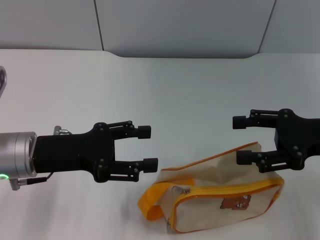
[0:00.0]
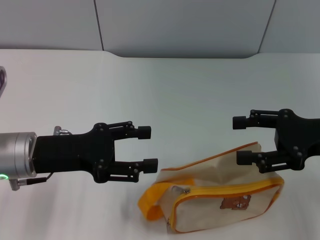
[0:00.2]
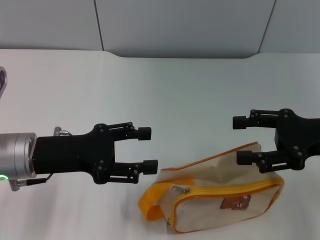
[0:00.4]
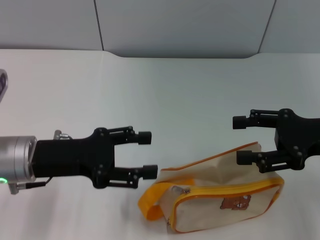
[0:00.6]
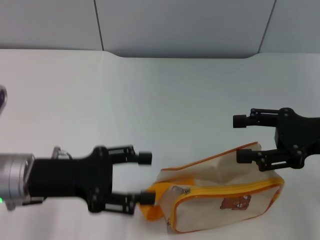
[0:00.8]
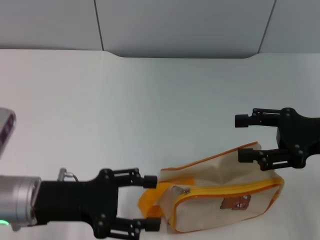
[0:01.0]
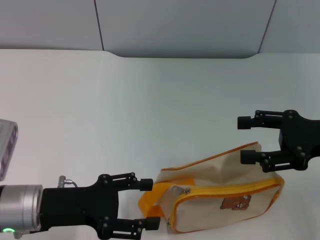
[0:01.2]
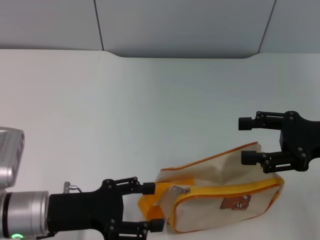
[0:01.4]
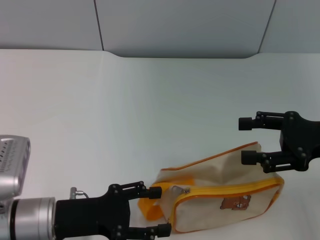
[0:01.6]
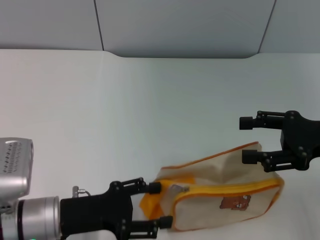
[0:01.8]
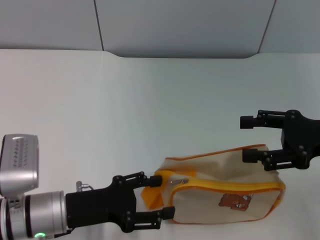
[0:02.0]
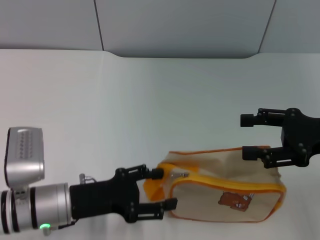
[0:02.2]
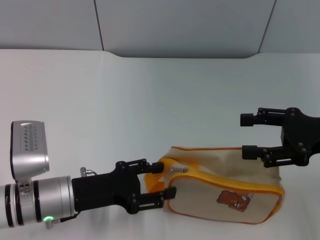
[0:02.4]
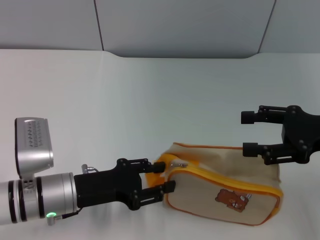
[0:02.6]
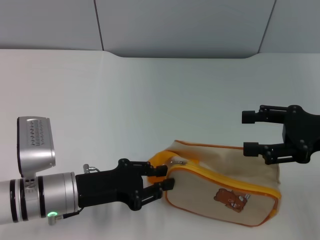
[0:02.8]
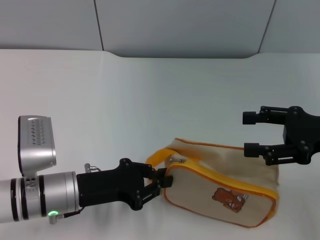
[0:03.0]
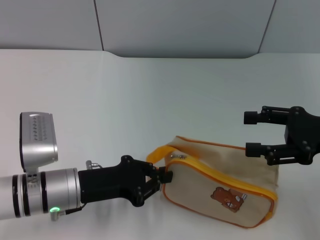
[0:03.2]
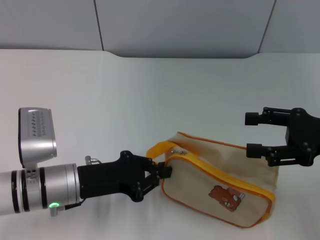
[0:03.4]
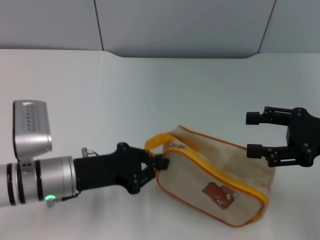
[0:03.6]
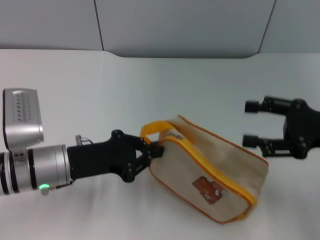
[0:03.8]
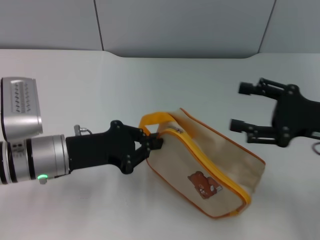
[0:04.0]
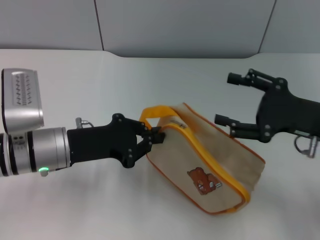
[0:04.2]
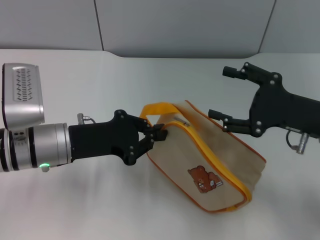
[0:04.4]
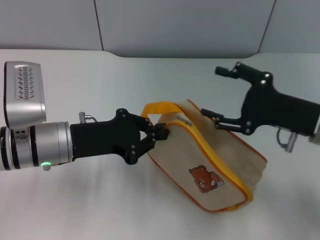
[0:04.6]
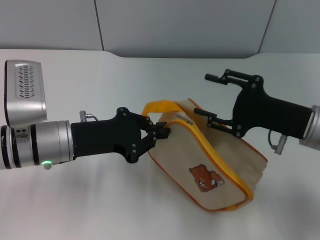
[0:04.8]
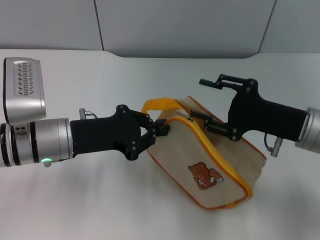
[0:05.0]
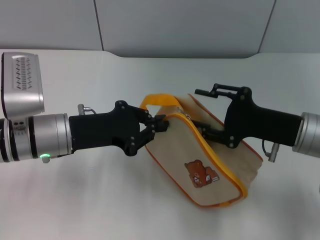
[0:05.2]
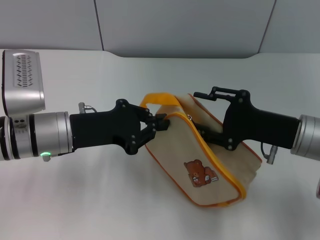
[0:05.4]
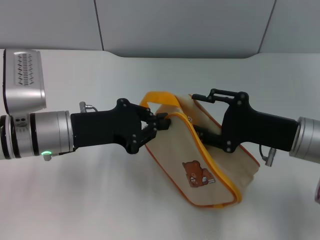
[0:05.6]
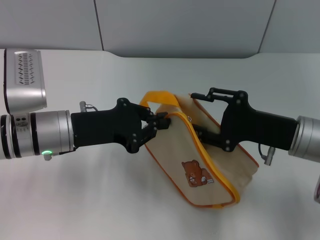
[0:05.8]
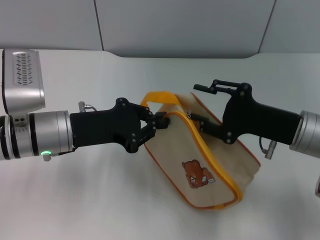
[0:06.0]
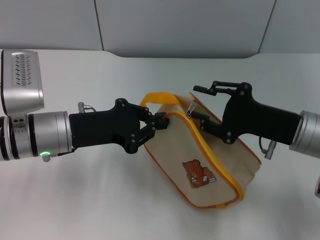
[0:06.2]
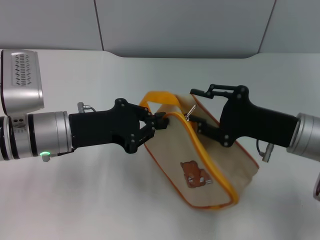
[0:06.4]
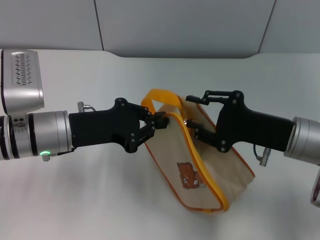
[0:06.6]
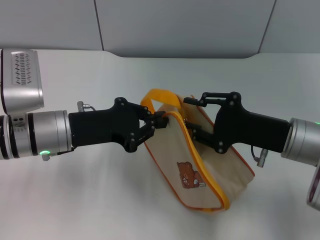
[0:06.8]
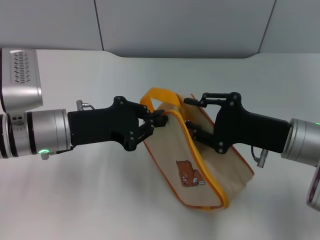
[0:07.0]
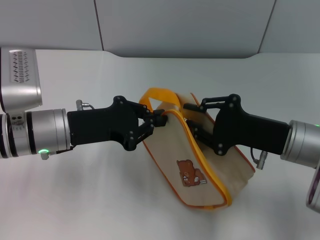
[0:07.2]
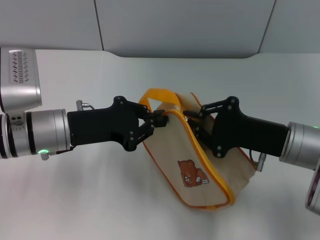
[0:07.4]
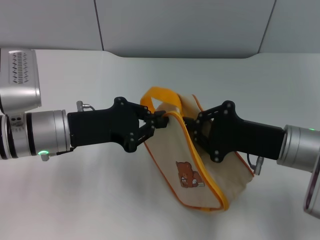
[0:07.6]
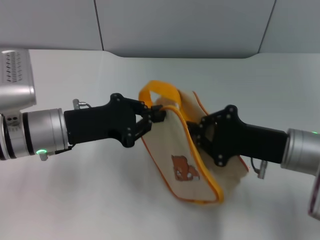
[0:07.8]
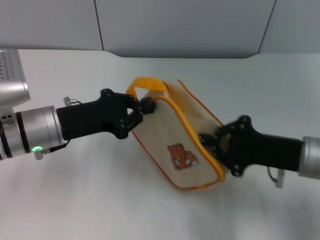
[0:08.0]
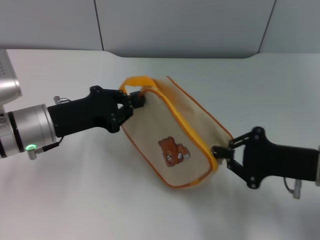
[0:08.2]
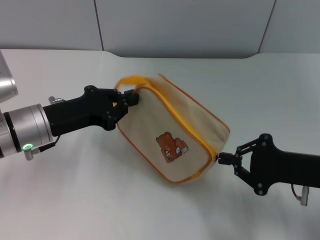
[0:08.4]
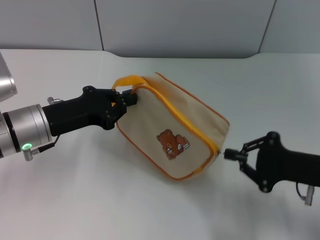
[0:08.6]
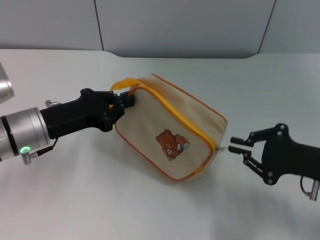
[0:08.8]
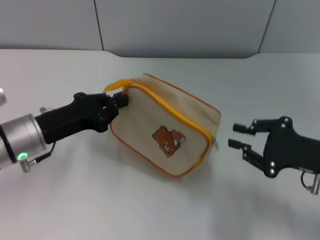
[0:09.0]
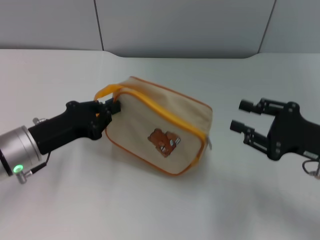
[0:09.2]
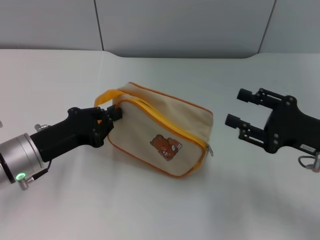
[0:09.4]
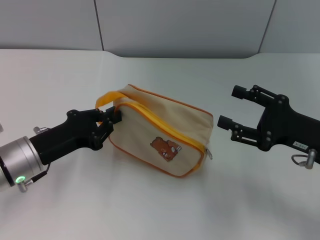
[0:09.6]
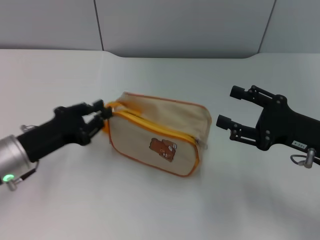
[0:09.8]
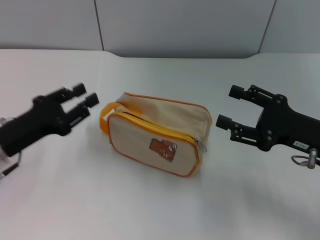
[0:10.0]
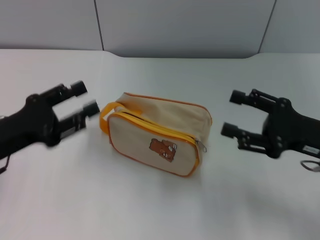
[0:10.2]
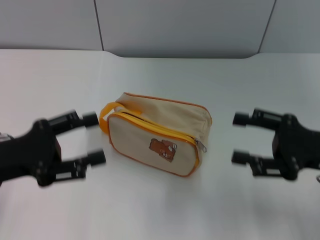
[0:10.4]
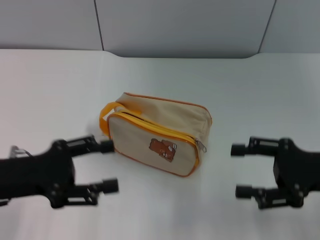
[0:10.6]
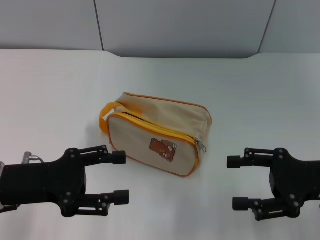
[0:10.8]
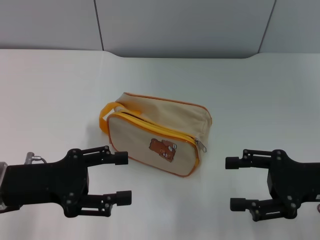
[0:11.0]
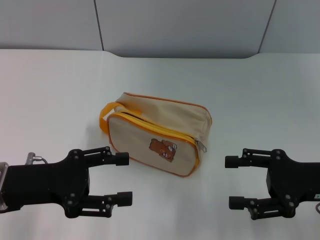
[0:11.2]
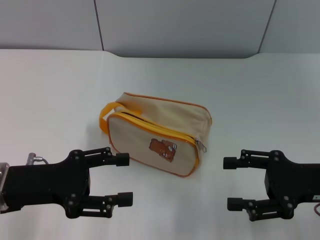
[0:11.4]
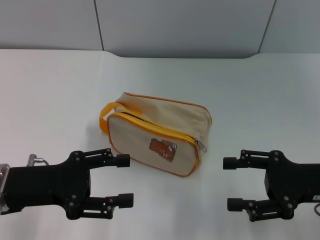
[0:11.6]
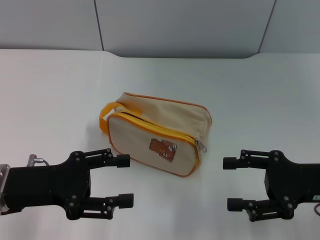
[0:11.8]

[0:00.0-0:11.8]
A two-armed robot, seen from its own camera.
Step, 0:00.0 to 0:04.0: Pick up the bag with left gripper.
Step, 0:04.2 to 0:08.8: Unzip the zipper of bag with right gripper.
Step, 0:09.0 to 0:09.8: Place the bag on the table with left gripper.
0:00.0 to 0:01.4: The left gripper moves downward and backward, some 10 cm.
0:01.4 to 0:03.0: The left gripper closes its fingers.
0:03.0 to 0:04.4: The left gripper is displaced upward by about 5 cm.
0:06.0 to 0:07.4: The right gripper closes.
0:07.4 to 0:08.8: The right gripper is displaced to the right by roughly 5 cm.
0:08.8 to 0:10.4: The right gripper opens, while the left gripper goes some 10 cm backward and to the left, and opens its fingers.

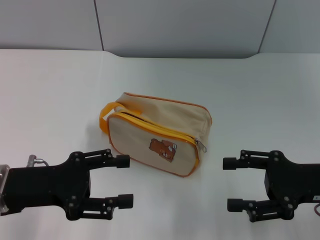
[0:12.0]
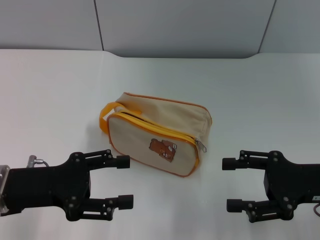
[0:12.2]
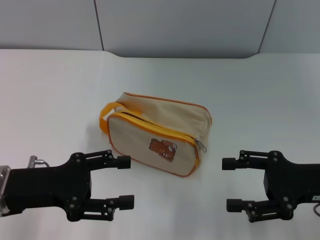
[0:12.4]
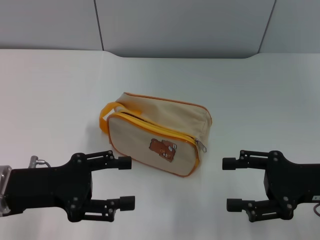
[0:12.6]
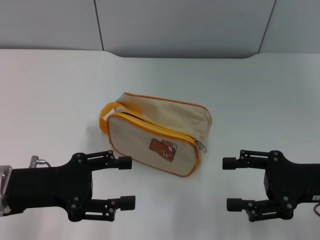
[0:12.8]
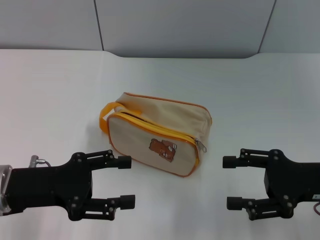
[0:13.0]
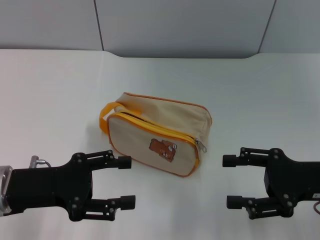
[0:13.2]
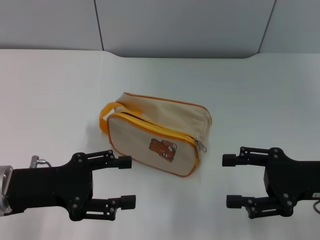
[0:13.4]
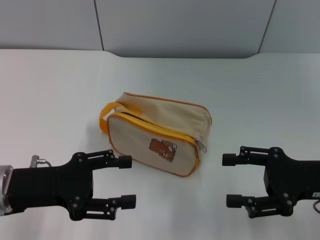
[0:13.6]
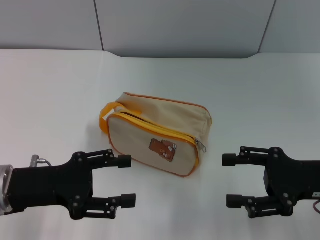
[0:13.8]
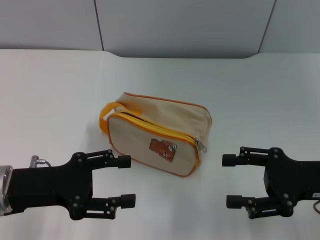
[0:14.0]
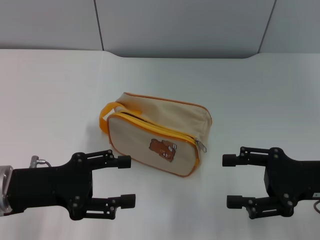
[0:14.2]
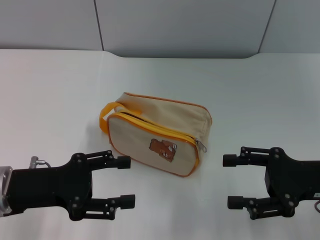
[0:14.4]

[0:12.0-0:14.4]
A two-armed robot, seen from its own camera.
0:12.0 to 0:14.4: Both grippers stay put.

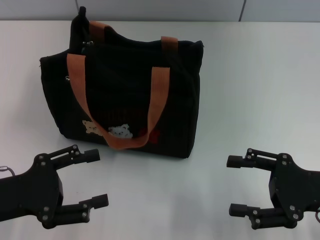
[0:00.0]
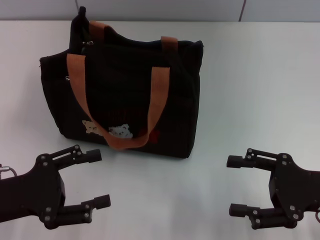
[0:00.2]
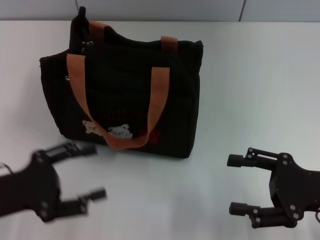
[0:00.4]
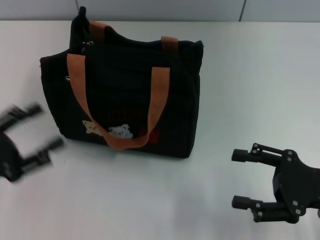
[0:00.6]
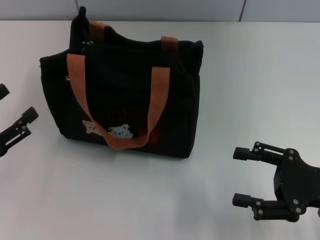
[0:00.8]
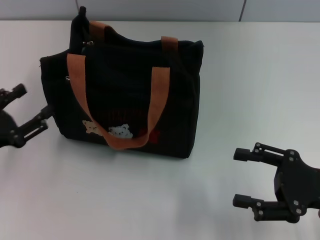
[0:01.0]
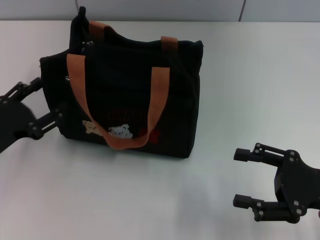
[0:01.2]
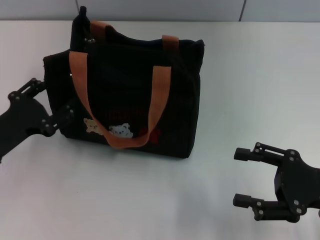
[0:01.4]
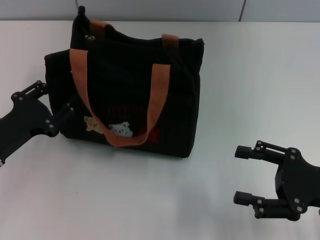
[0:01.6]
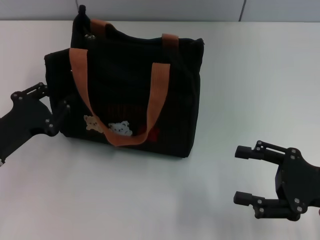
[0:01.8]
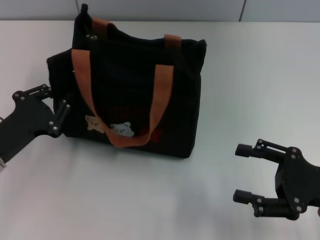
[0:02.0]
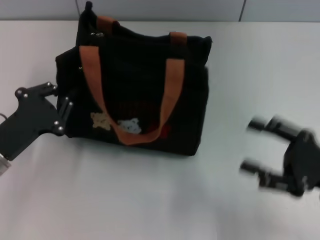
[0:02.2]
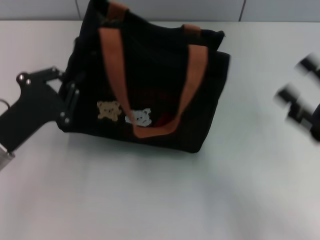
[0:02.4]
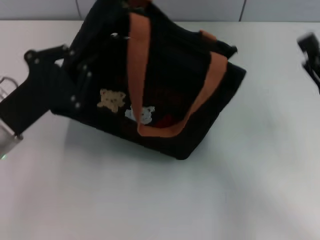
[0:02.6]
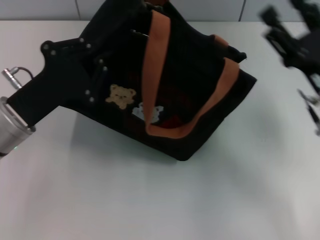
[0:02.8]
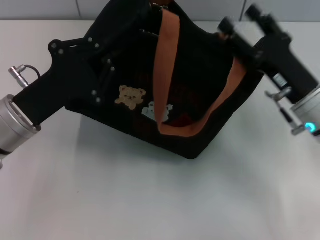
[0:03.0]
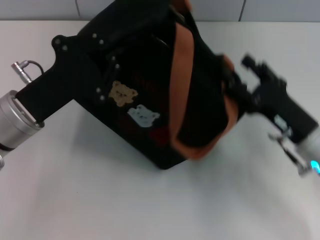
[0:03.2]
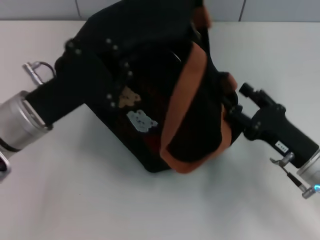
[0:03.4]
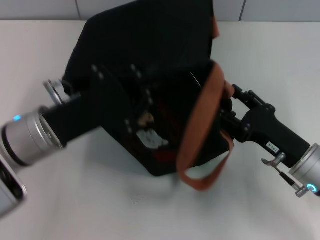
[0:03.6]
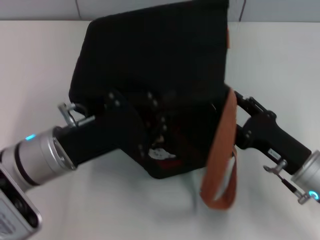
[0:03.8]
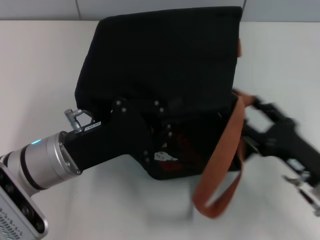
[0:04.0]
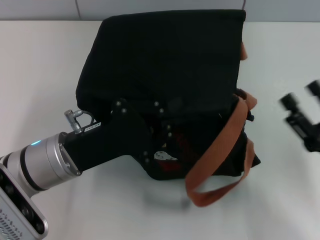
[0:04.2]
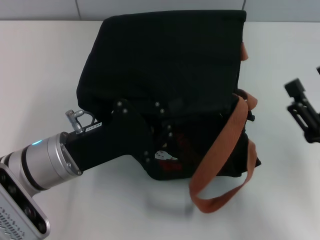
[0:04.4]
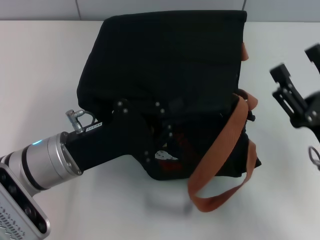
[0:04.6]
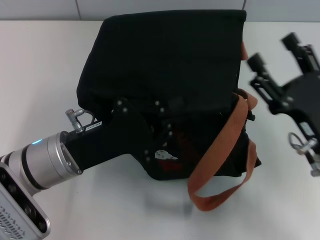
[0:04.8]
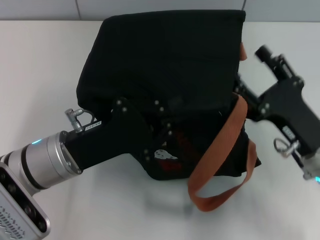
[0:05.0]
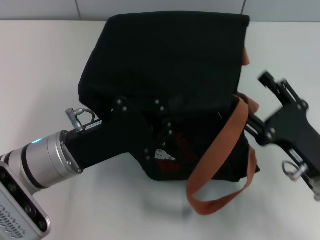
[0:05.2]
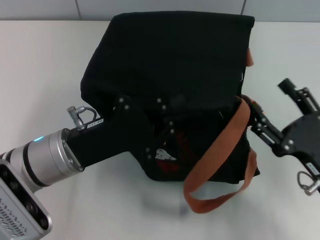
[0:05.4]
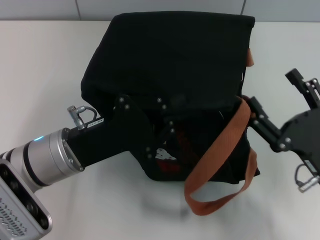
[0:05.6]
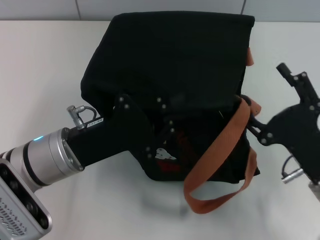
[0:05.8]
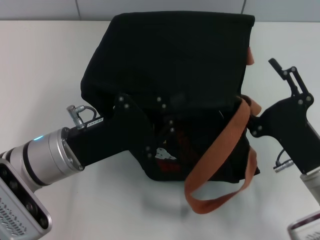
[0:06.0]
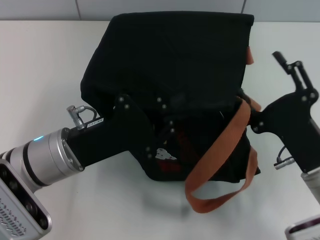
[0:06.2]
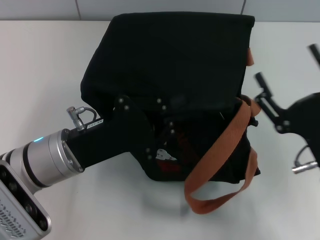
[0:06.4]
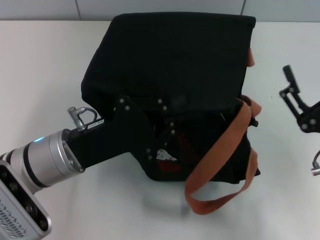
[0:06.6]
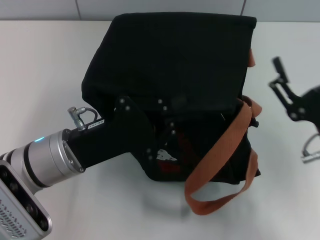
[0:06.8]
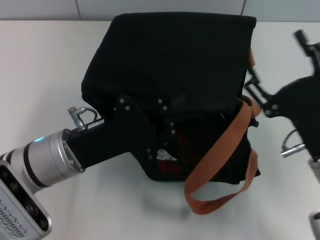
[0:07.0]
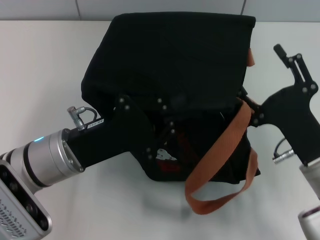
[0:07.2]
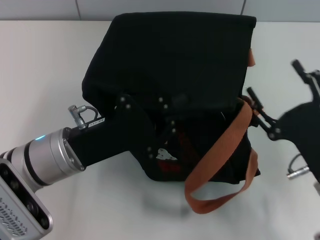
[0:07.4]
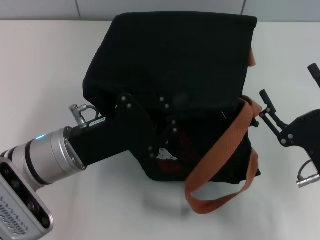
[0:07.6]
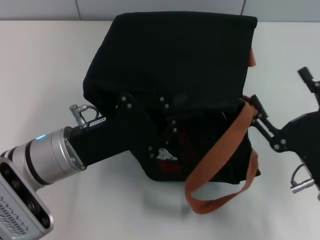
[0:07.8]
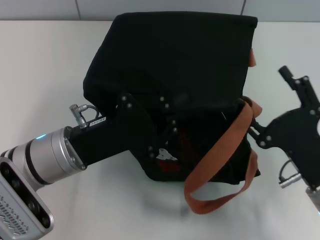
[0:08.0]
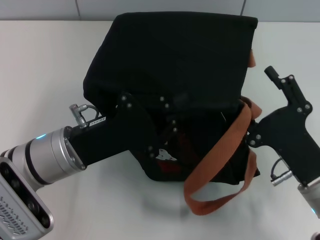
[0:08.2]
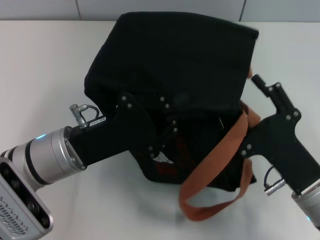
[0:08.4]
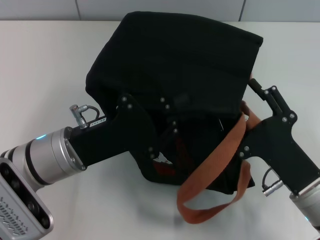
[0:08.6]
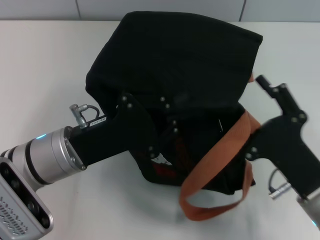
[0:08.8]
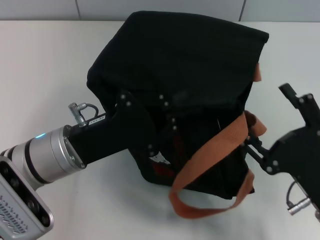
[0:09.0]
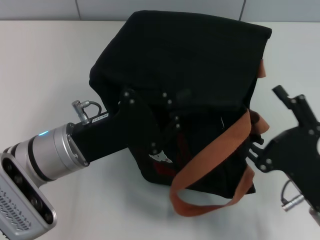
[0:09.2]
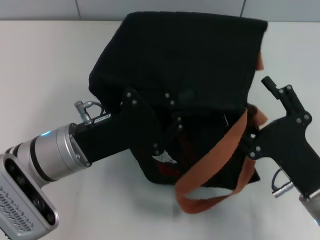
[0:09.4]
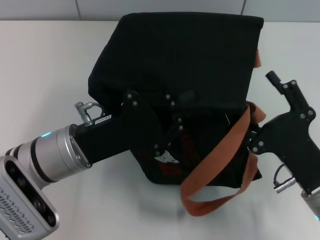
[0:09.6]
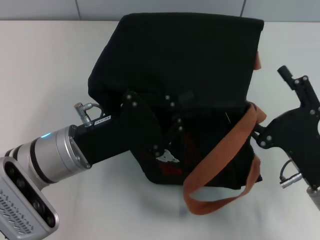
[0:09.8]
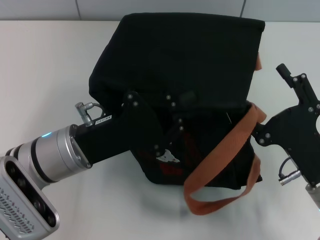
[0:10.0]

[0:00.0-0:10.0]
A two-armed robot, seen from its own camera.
0:00.0 to 0:01.4: The left gripper changes place by about 5 cm.
0:01.4 to 0:02.8: The right gripper goes approximately 5 cm forward. The left gripper shifts roughly 10 cm to the right, and closes.
0:02.8 to 0:04.2: The left gripper travels to the right by about 5 cm. Meanwhile the right gripper heads backward and downward, covering some 10 cm.
0:08.6 to 0:10.0: The grippers move only a little.
